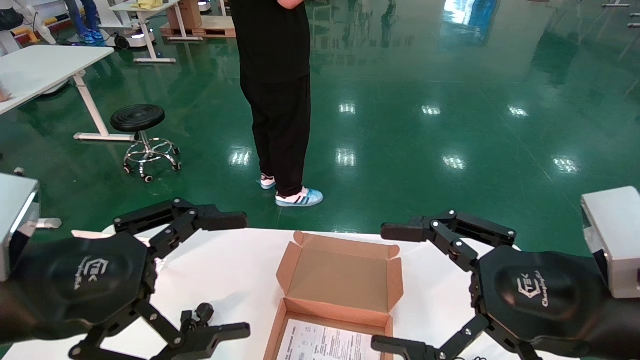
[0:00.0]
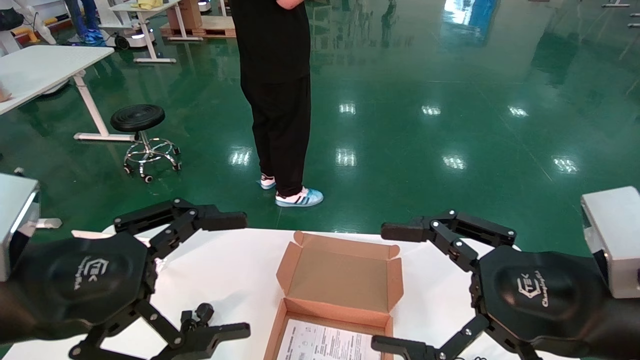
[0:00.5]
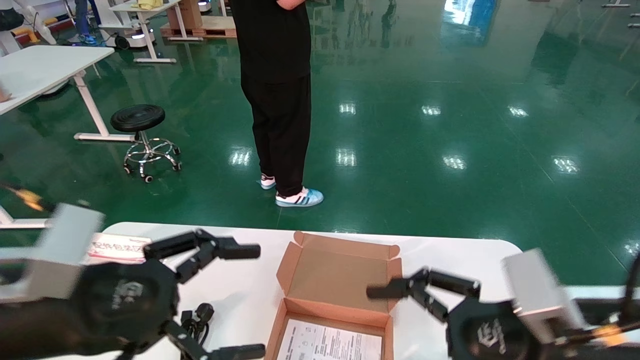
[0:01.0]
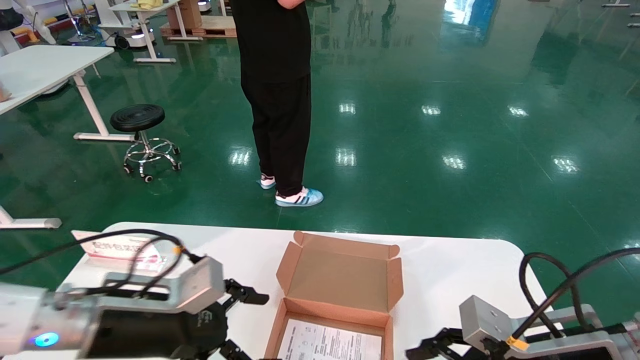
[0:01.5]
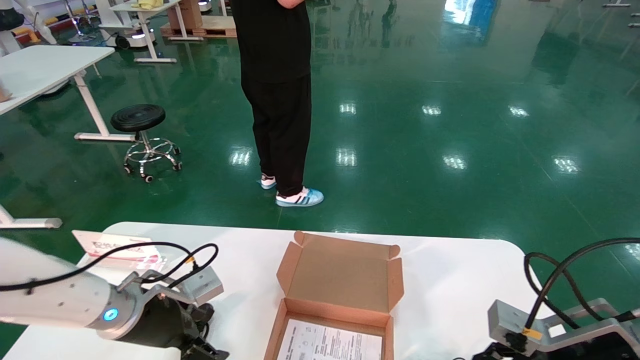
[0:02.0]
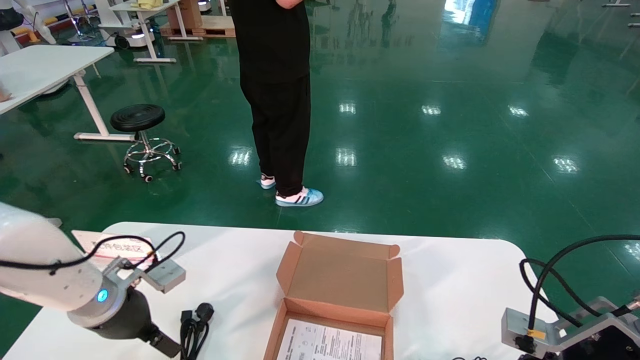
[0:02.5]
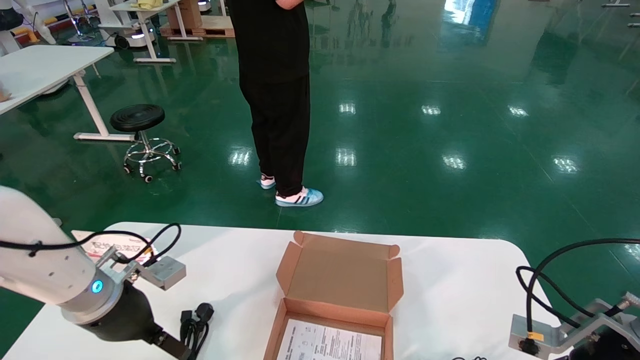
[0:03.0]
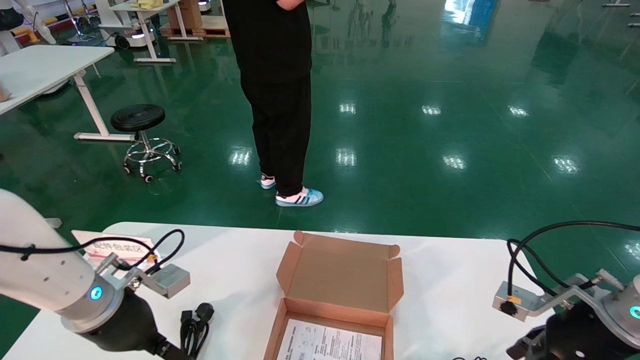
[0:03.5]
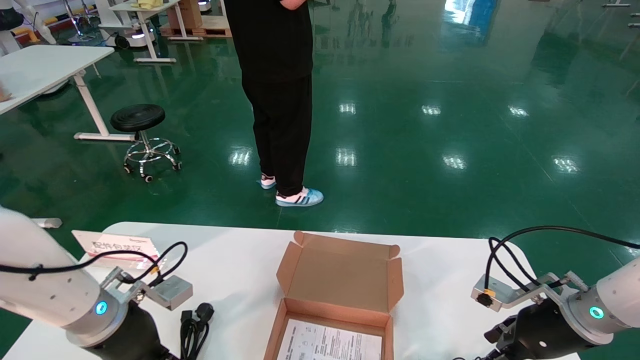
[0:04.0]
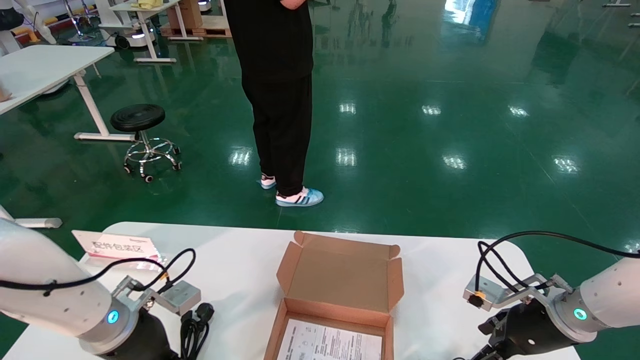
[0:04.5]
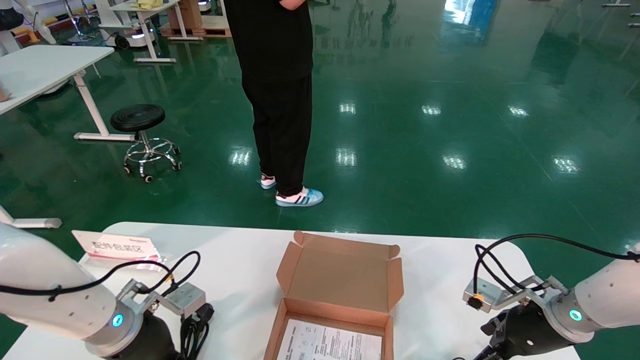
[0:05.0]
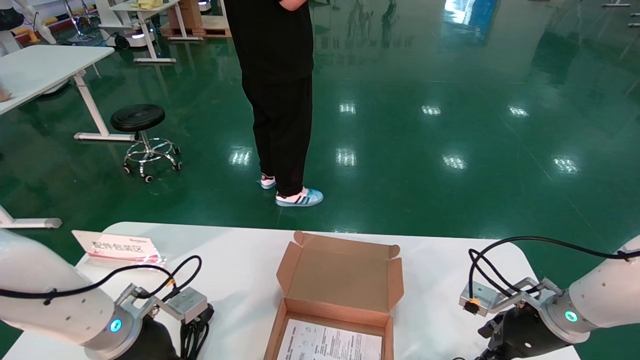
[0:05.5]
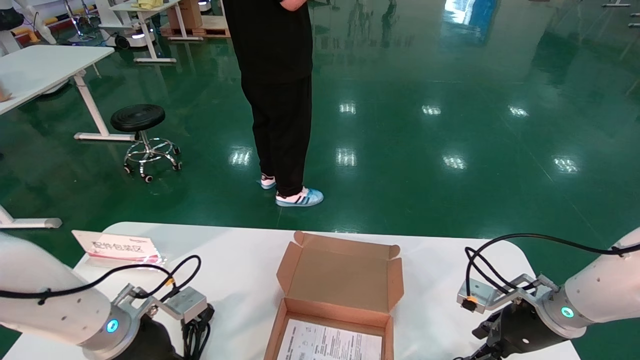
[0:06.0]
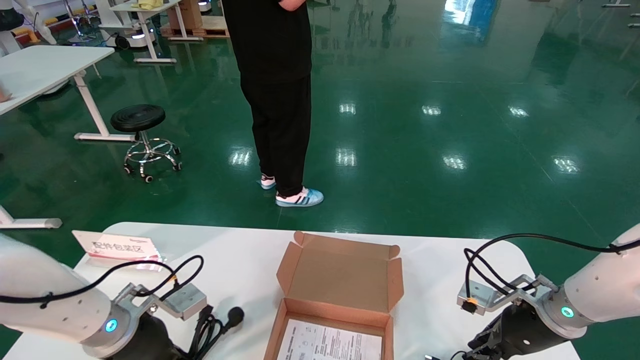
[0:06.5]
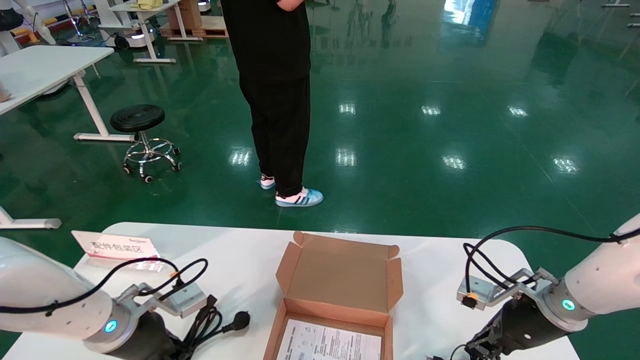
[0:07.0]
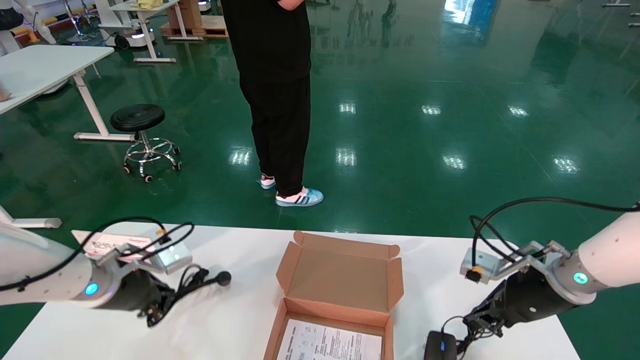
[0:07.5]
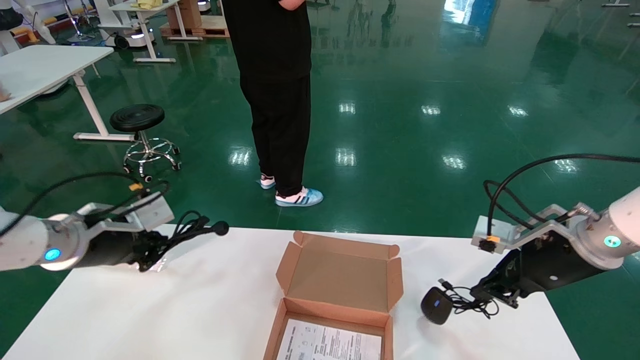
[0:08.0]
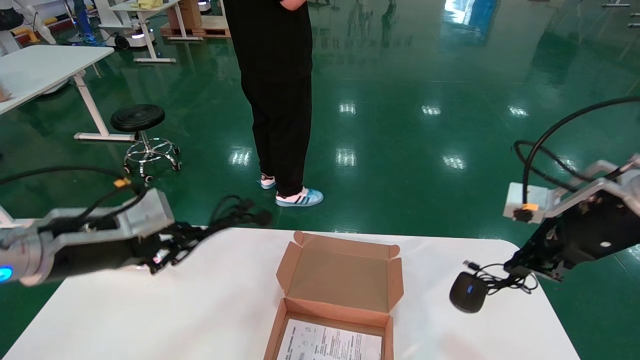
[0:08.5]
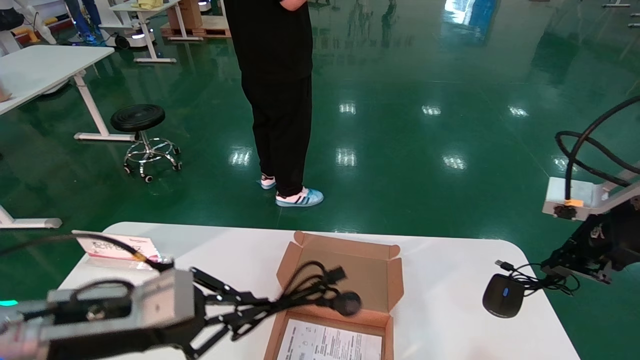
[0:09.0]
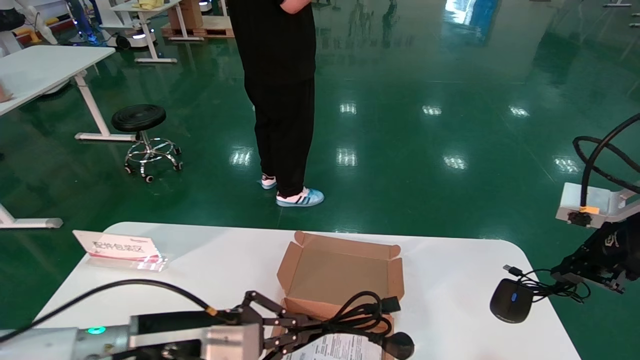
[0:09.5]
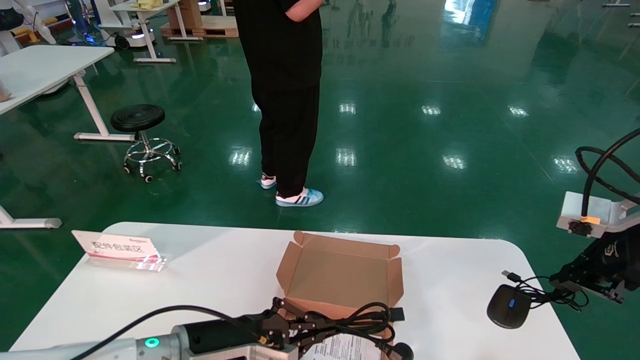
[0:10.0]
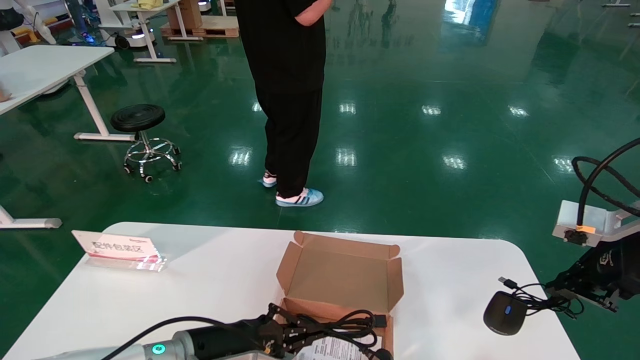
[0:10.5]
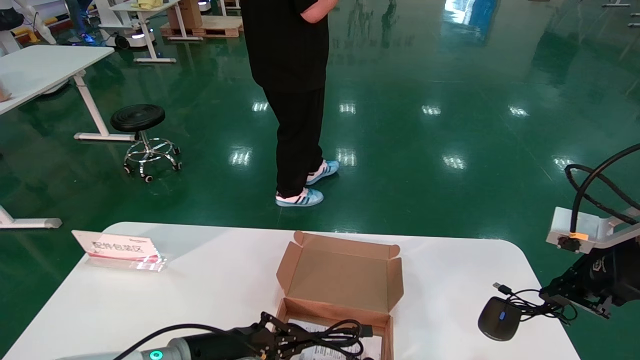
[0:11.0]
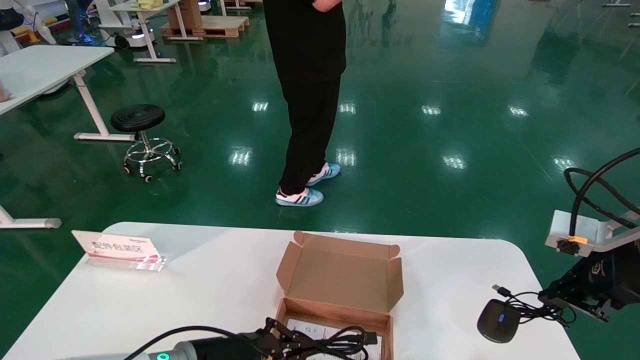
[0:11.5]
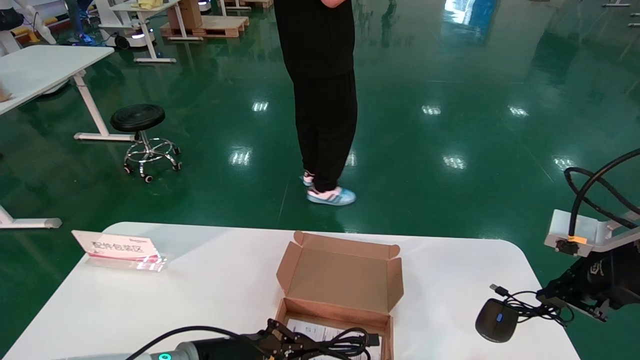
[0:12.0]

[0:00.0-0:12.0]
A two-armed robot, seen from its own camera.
Step, 0:00.0 to 0:06.5: Grasp the mouse and data cable.
0:00.0 to 0:02.0: The right gripper heads downward, forward and to the right, covering about 15 cm, while the left gripper goes about 25 cm forward and downward.
0:02.0 to 0:04.0: The right gripper is displaced forward by approximately 10 cm.
0:04.0 to 0:06.0: There are only small adjustments of the grippers.
0:06.0 to 0:08.0: The right gripper heads upward, covering some 15 cm, and closes up; the left gripper heads upward and to the left, covering roughly 15 cm, and closes up.
0:08.0 to 0:10.0: The right gripper shifts about 10 cm backward, upward and to the right. The left gripper heads to the right and downward, covering some 20 cm.
0:10.0 to 0:12.0: There are only small adjustments of the grippers.

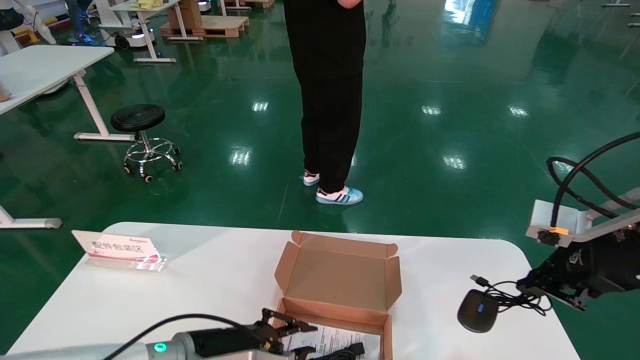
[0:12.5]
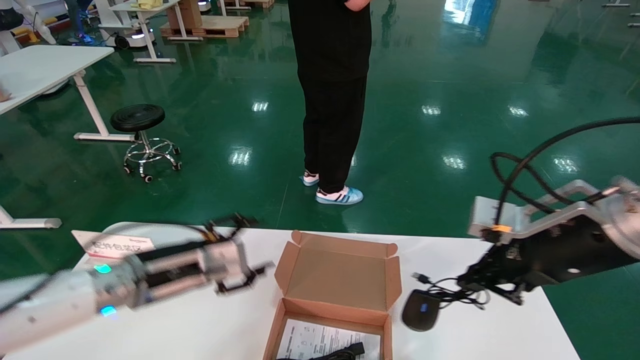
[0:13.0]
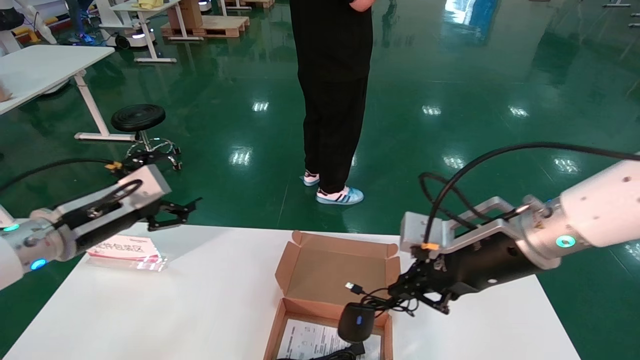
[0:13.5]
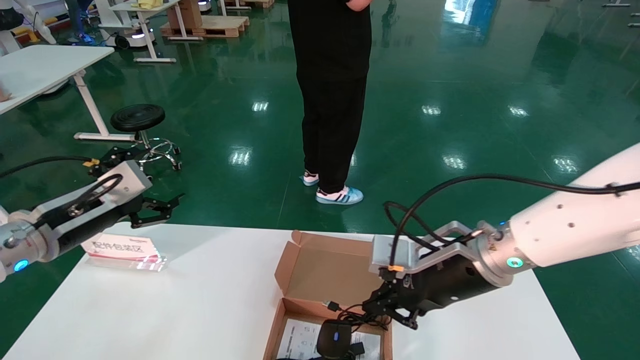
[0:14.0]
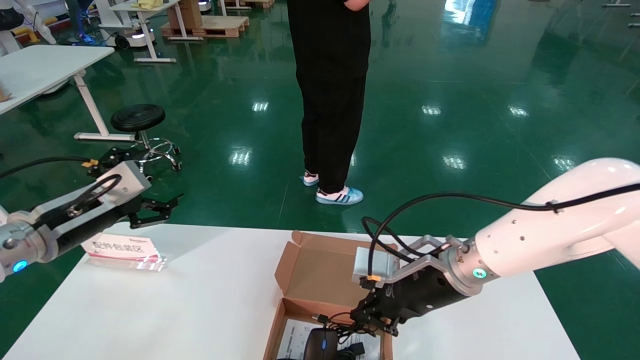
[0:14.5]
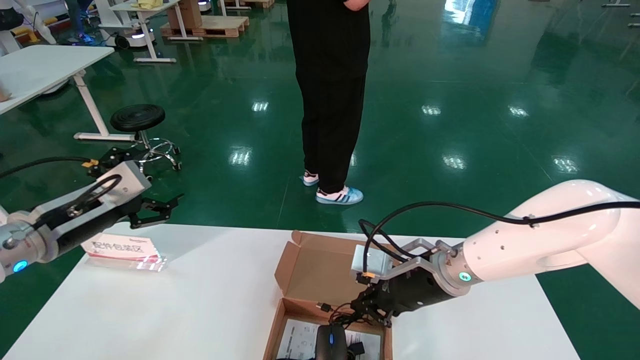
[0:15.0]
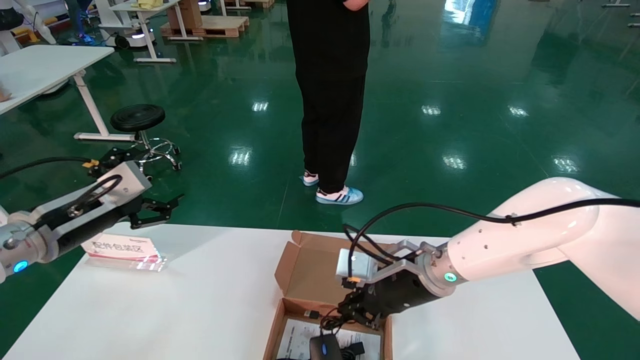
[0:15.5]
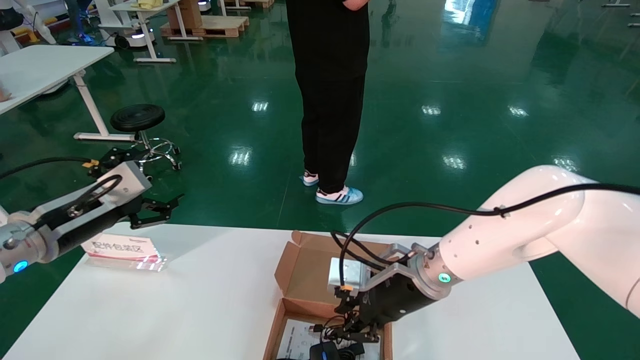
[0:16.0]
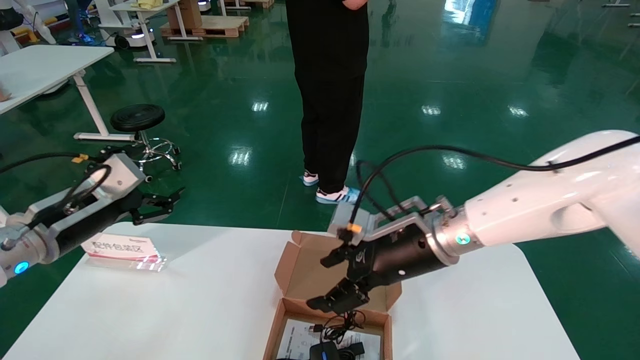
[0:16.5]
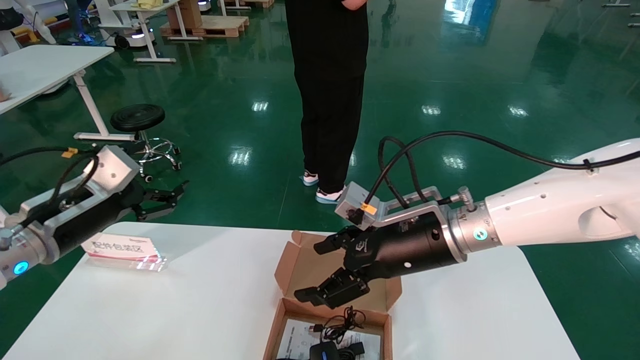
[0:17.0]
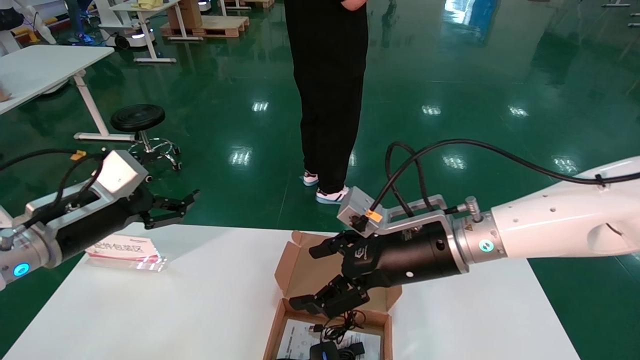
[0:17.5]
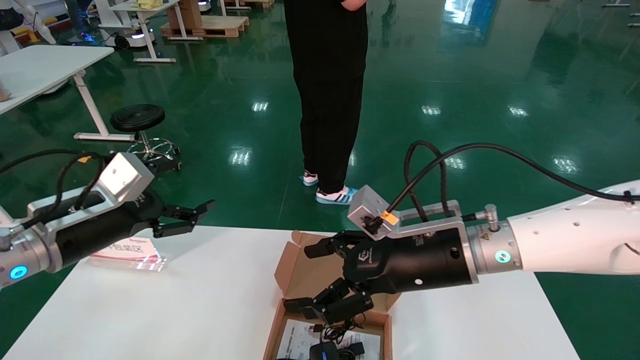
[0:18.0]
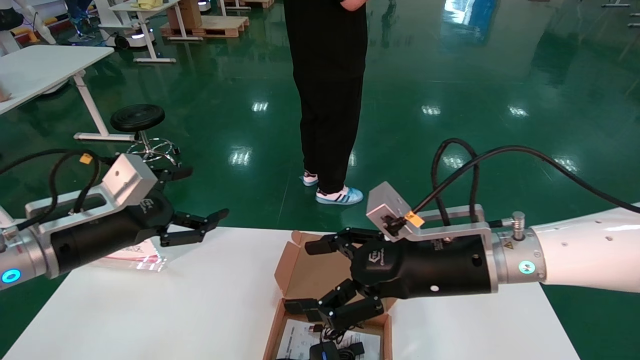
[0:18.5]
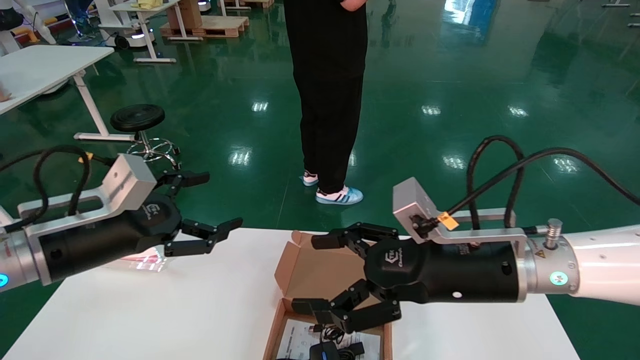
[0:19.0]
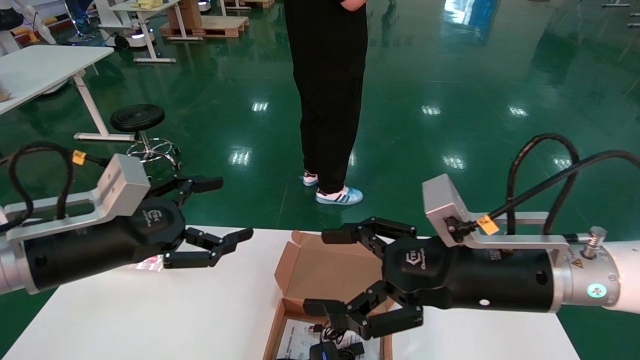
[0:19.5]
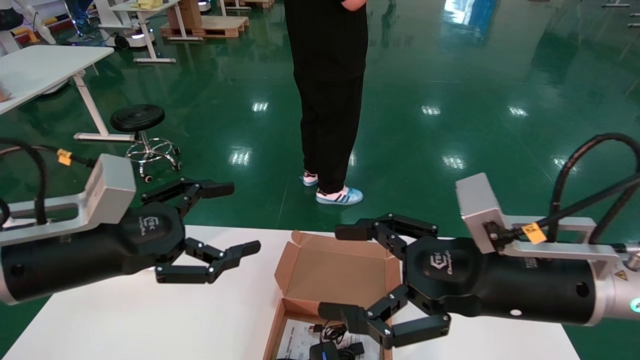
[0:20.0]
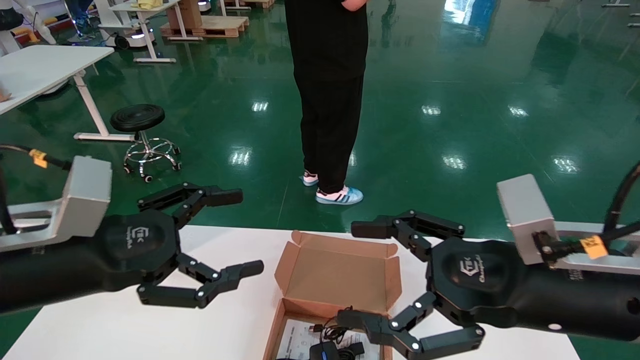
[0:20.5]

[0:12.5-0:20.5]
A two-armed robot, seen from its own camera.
Step, 0:12.5 to 0:15.5: Place the mouse and data cable in the paper box.
0:12.5 to 0:14.5: The right gripper heads to the left, downward and forward, covering about 25 cm, while the left gripper shifts roughly 25 cm to the left and upward, and opens.
0:14.5 to 0:16.5: The grippers make only small movements.
0:16.5 to 0:18.5: The right gripper moves backward, approximately 5 cm, and opens its fingers. Meanwhile the left gripper shifts by some 5 cm.
0:18.5 to 0:20.5: The left gripper goes some 10 cm backward, while the right gripper shifts approximately 10 cm backward and to the right.
